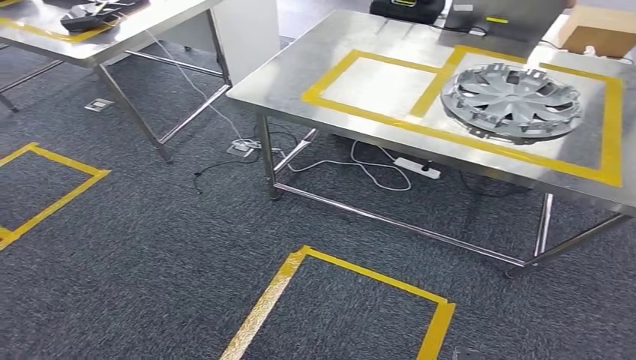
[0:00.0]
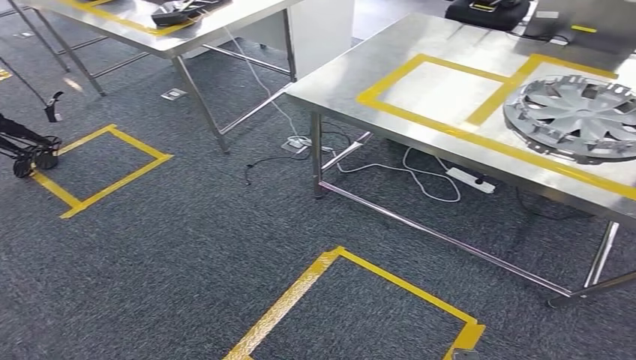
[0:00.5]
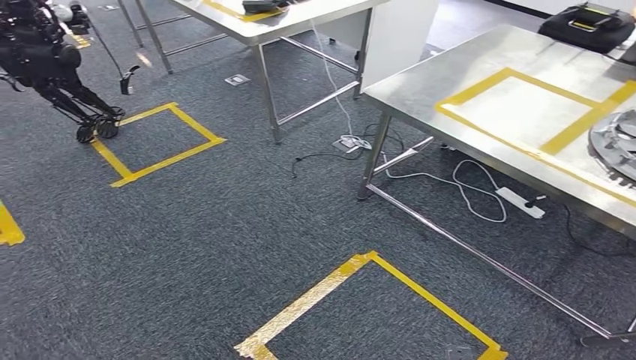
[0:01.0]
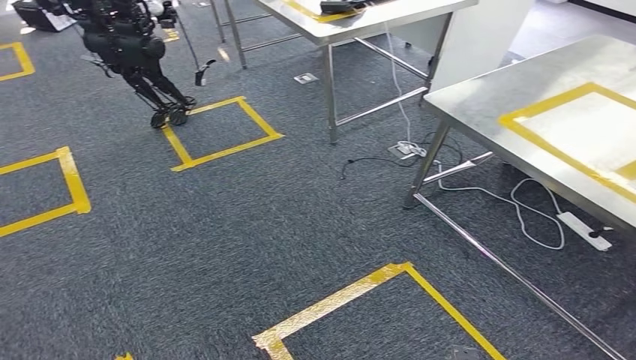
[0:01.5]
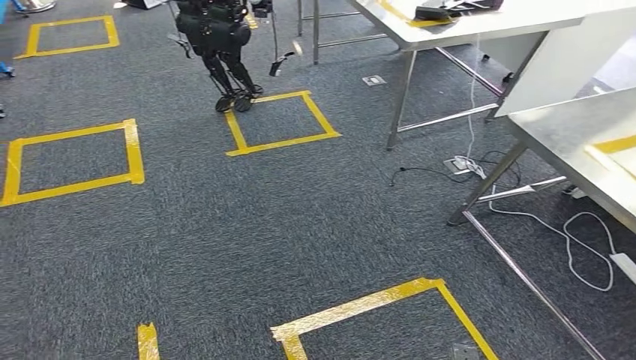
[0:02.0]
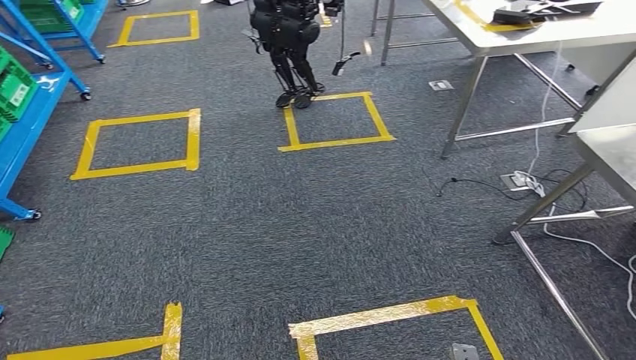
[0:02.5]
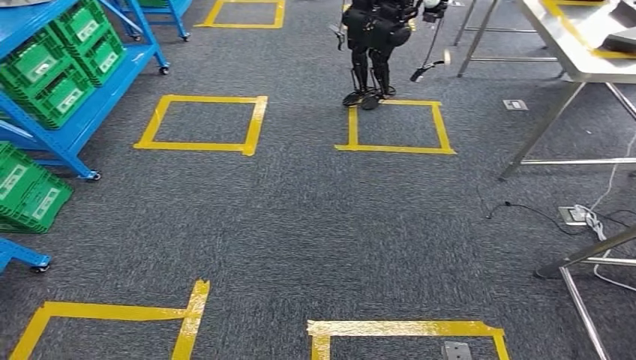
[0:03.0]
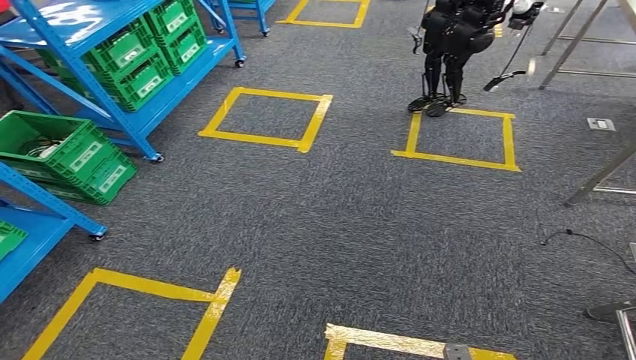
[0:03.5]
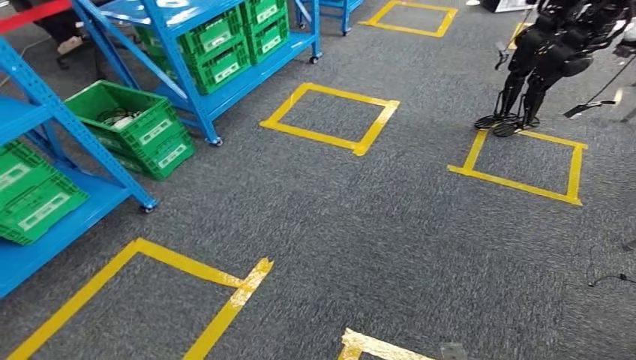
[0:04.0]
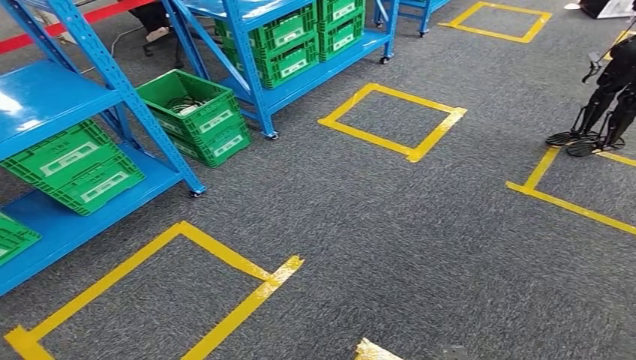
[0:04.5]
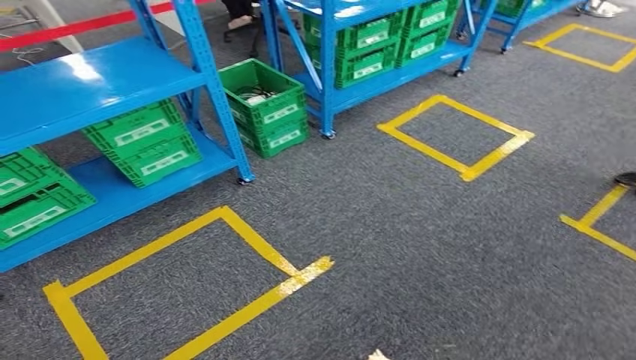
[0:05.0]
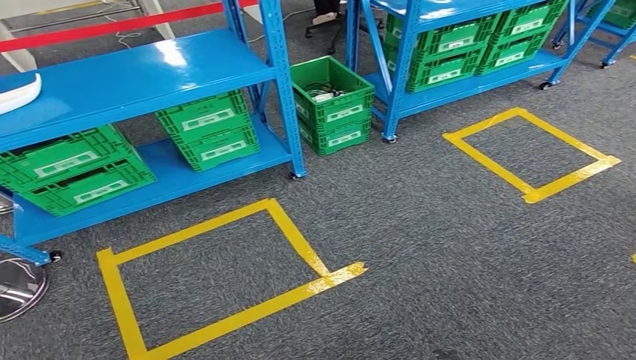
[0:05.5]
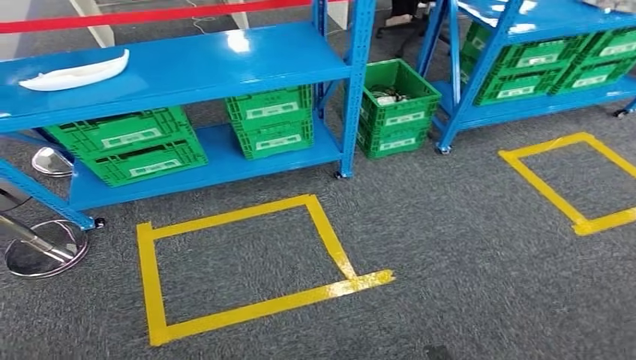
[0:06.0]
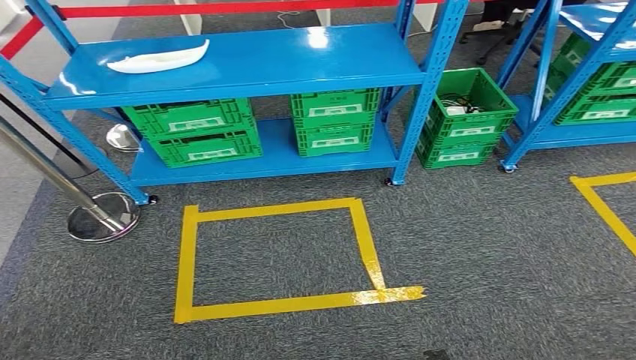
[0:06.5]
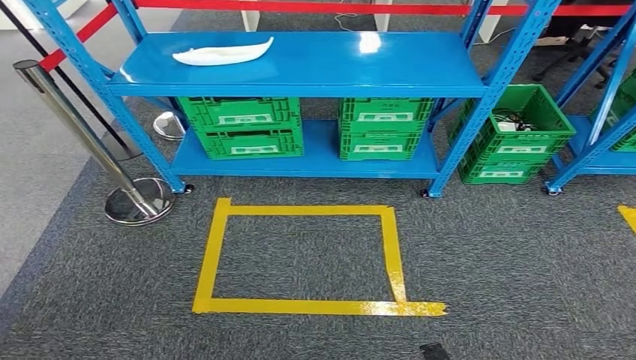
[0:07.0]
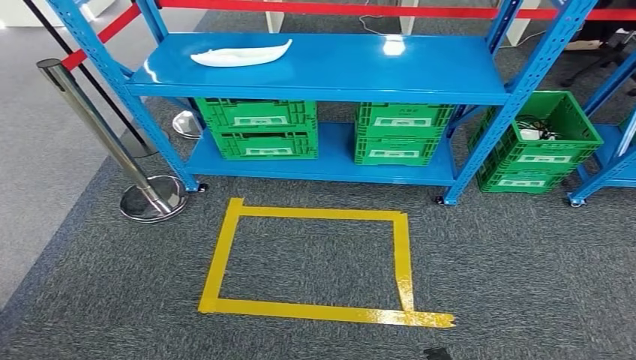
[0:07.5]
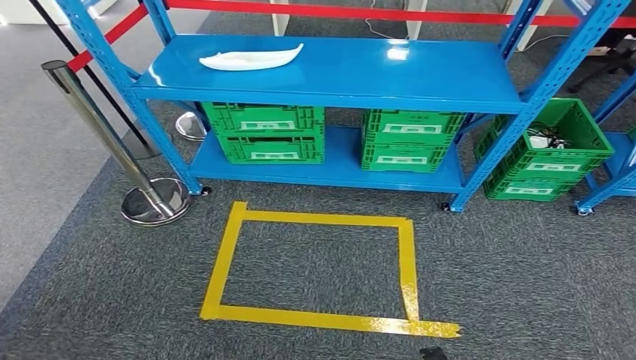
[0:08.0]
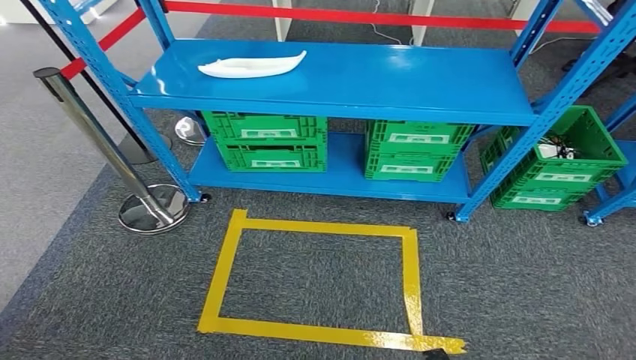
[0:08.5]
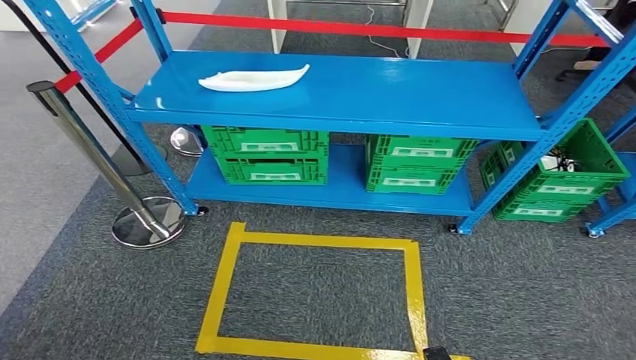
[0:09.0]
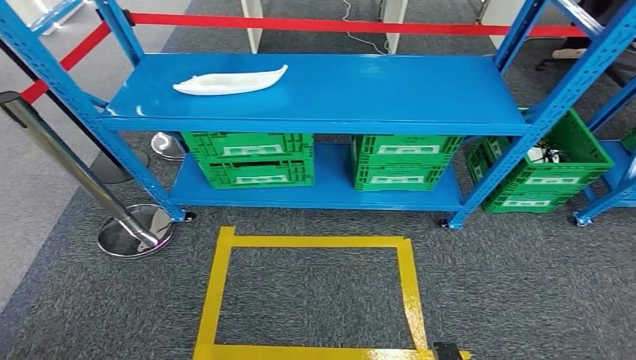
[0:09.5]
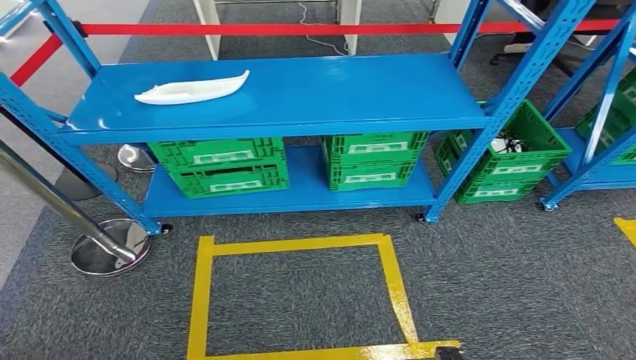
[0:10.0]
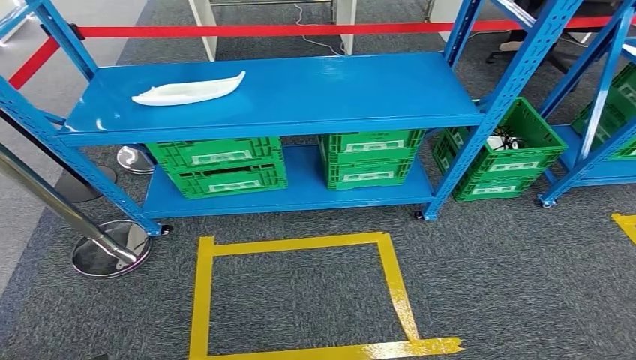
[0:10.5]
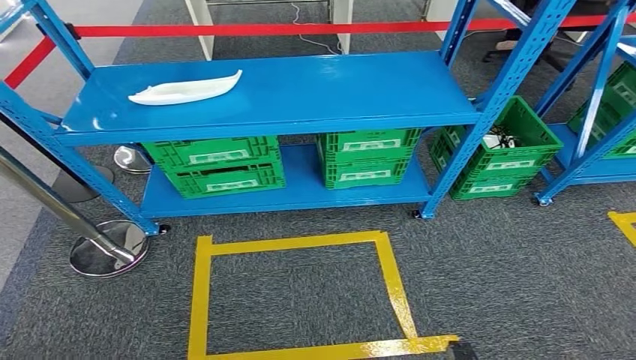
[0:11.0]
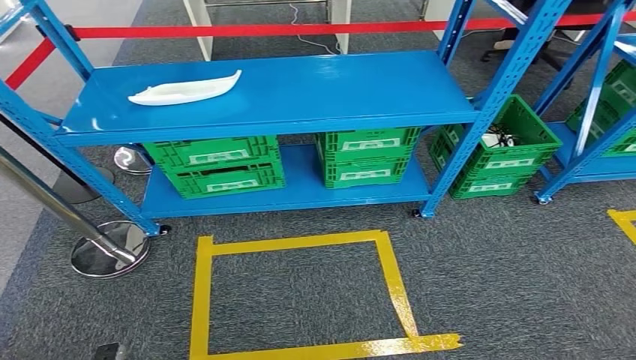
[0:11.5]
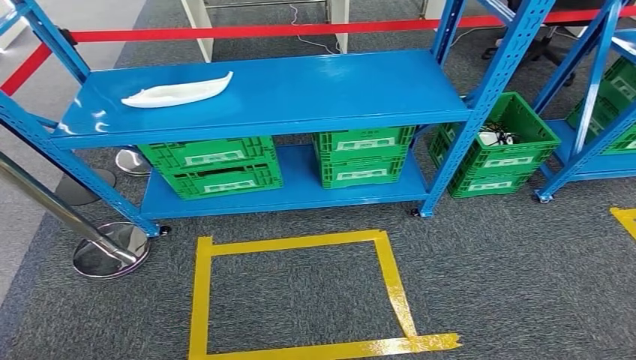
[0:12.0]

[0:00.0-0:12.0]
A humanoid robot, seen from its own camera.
Step, 0:00.0 to 0:11.5: Return to the initial position at the workbench.
